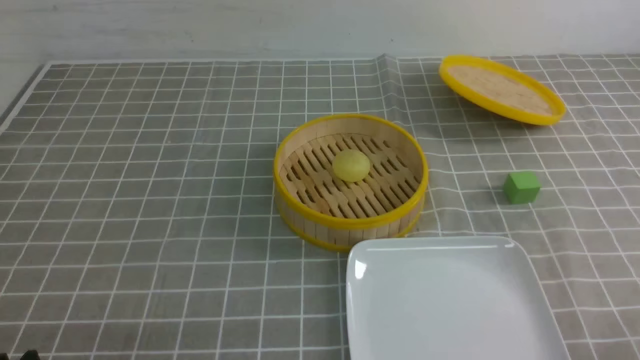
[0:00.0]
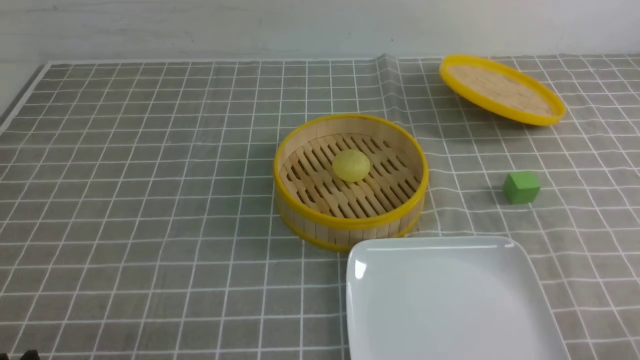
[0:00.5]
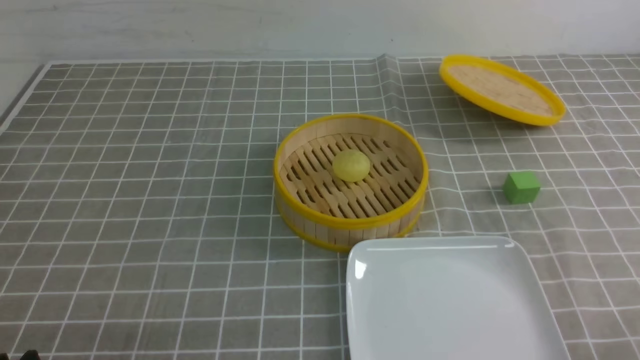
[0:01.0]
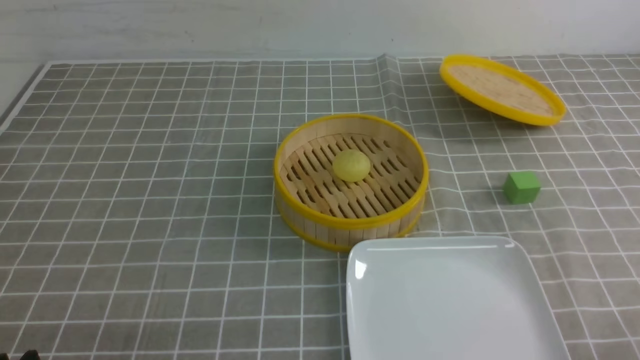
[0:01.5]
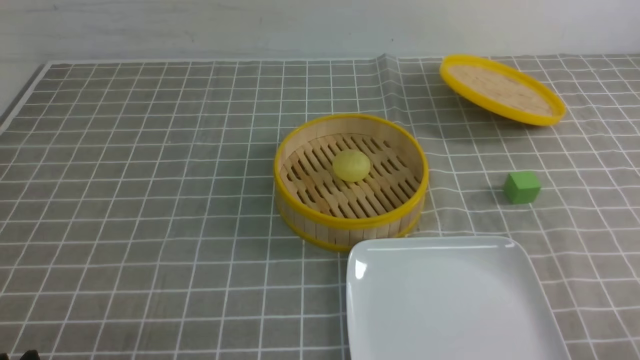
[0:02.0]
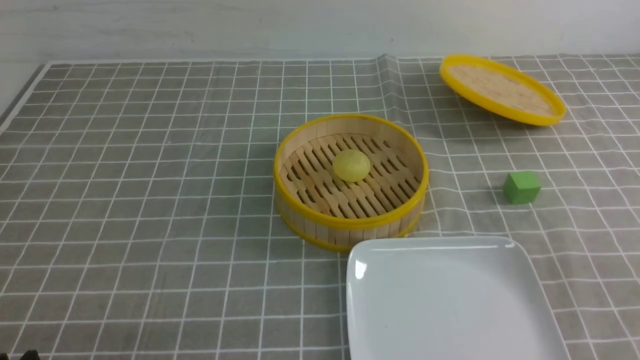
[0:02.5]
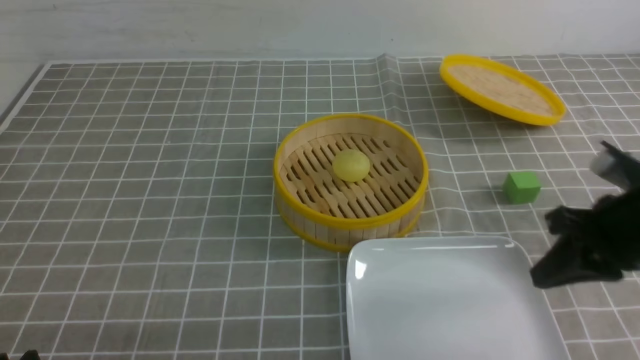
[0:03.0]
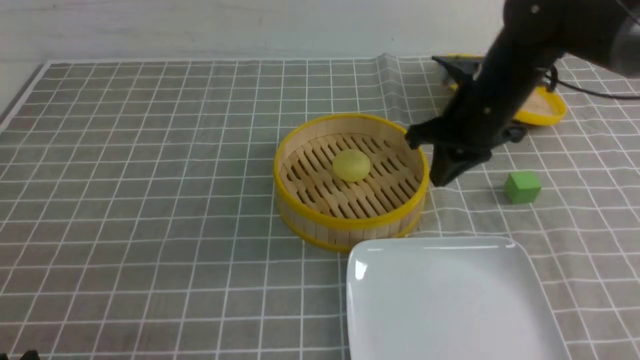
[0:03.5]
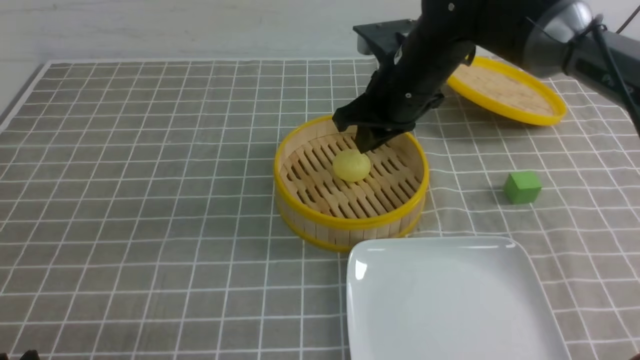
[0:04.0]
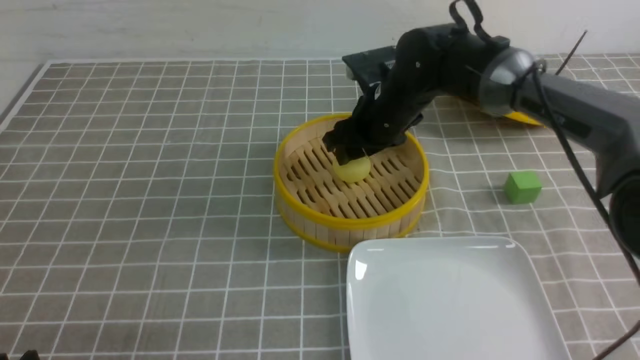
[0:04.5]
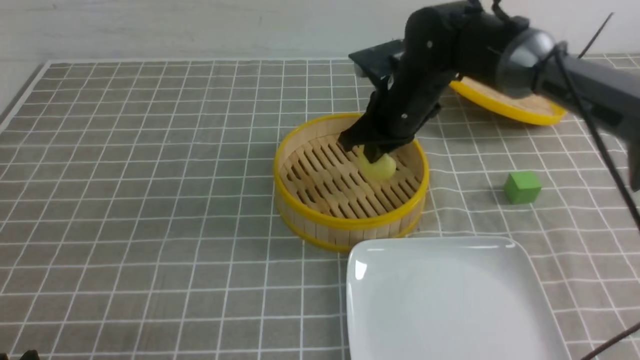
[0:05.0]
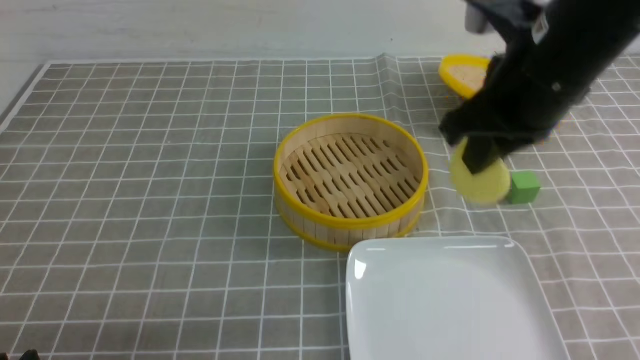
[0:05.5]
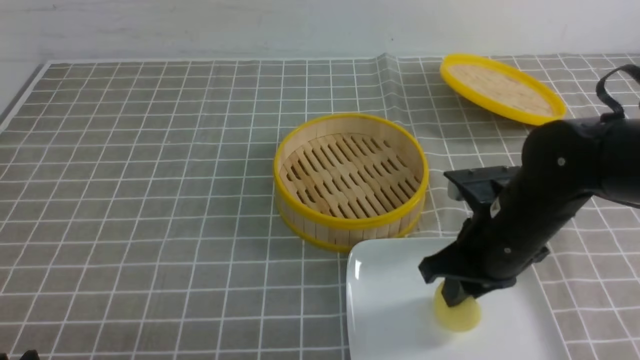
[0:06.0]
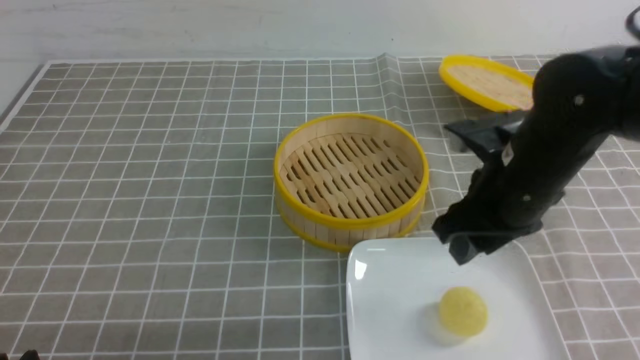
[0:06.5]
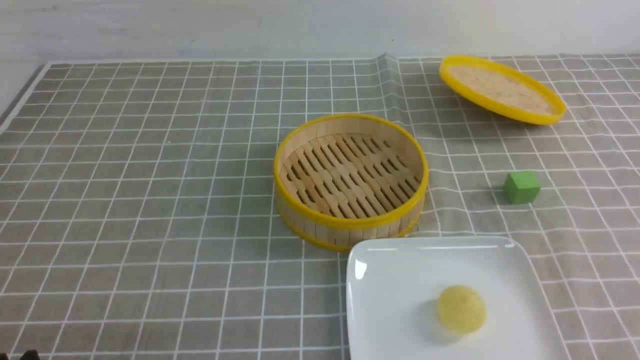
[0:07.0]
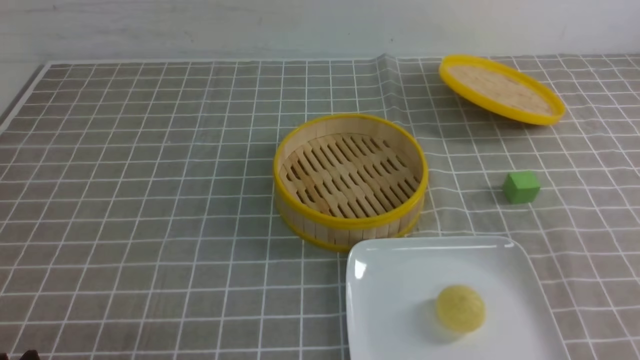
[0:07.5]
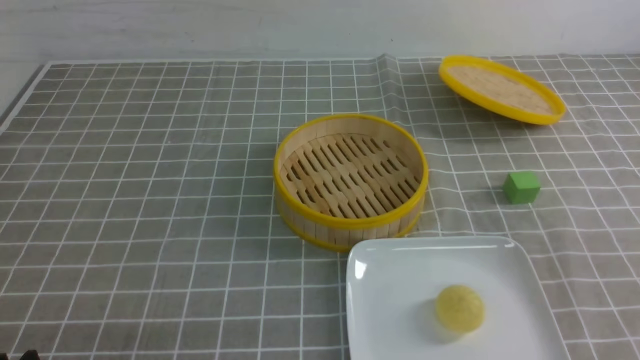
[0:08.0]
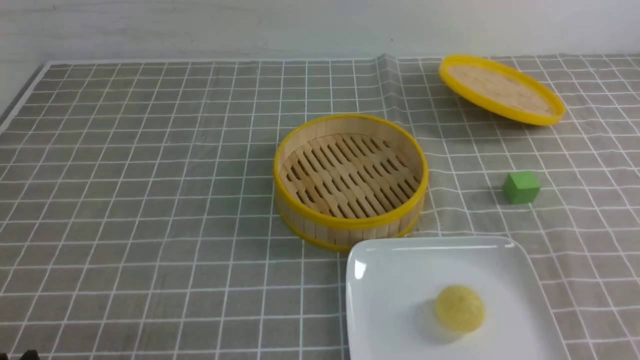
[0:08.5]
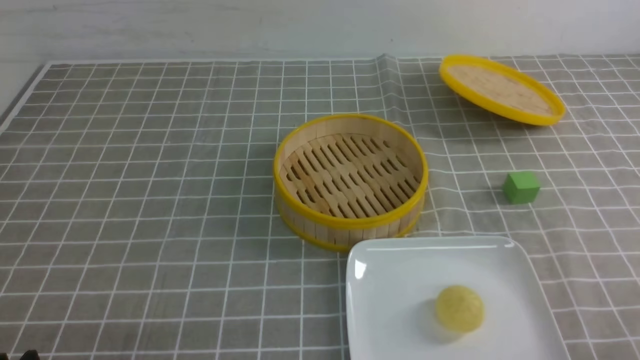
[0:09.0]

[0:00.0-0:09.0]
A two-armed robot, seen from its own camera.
Step, 0:00.0 to 0:04.5: use the right arm to grab the steamed stuffed bun that is closest to it.
Step, 0:05.5 to 0:06.0: use the right arm to put the steamed stuffed bun into the plate.
0:02.0 to 0:04.5: The right gripper goes about 50 cm forward and to the left, and opens.
0:04.5 to 0:07.0: The right gripper goes roughly 40 cm backward, to the right and upward, and closes its fingers.
0:07.0 to 0:09.0: The right gripper travels downward and backward by approximately 20 cm.

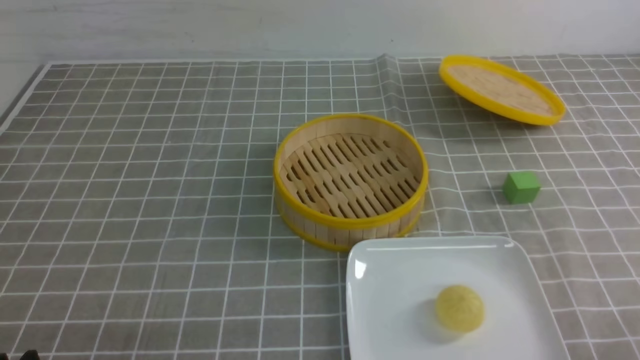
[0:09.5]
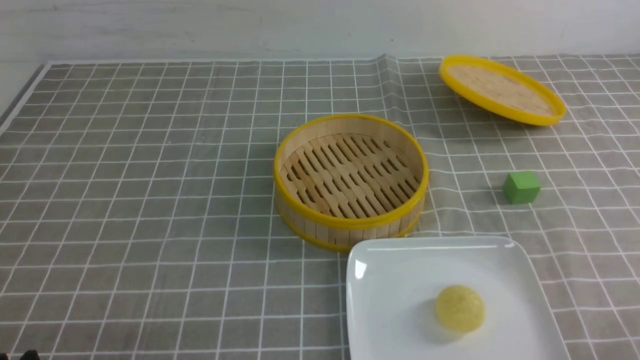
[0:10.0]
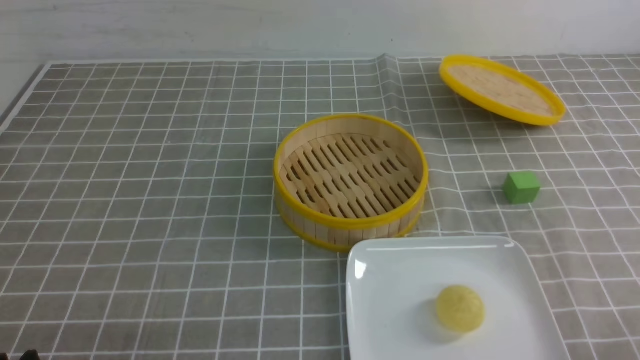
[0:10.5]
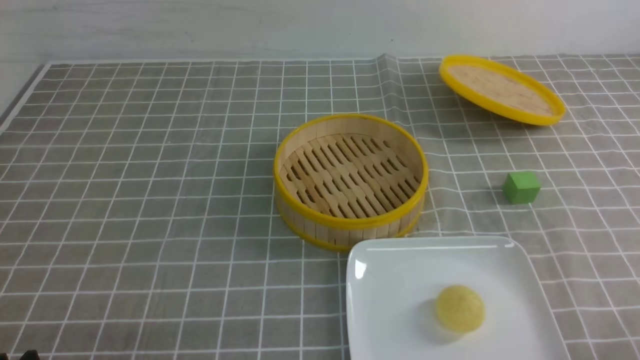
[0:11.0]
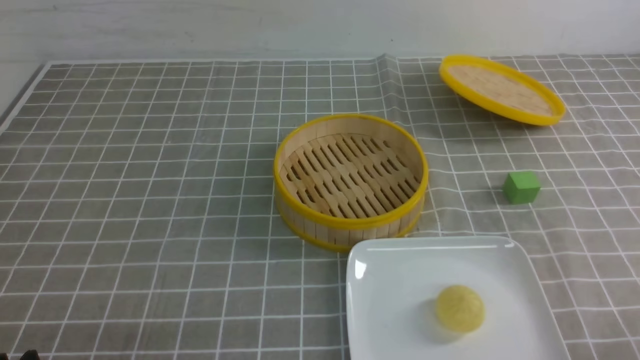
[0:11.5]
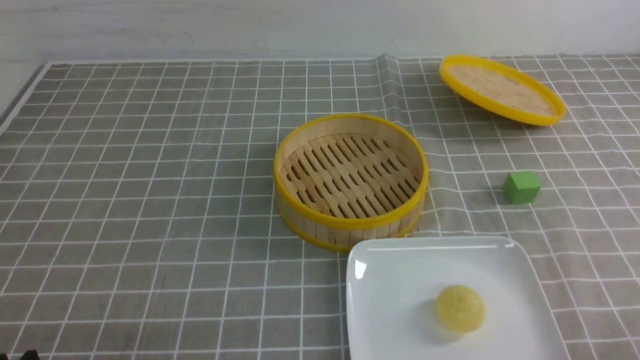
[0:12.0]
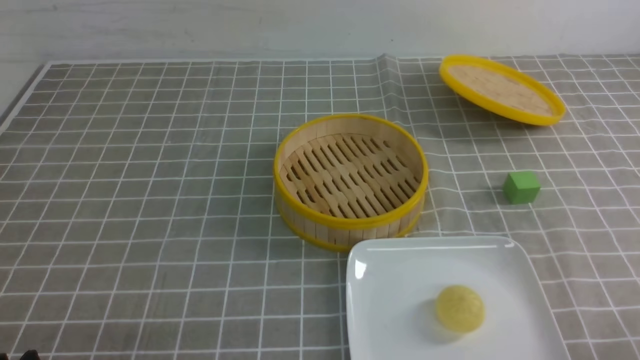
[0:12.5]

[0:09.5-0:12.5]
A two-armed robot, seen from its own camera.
0:09.5 to 0:12.5: Both grippers stay put.
